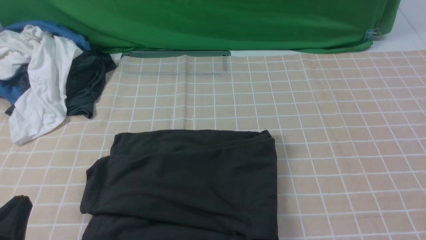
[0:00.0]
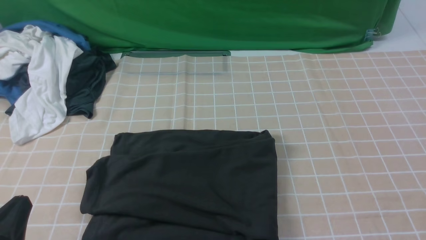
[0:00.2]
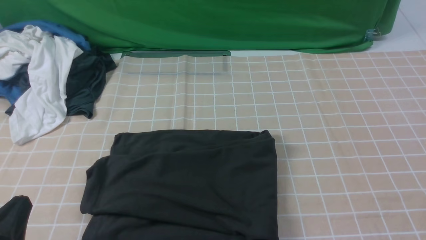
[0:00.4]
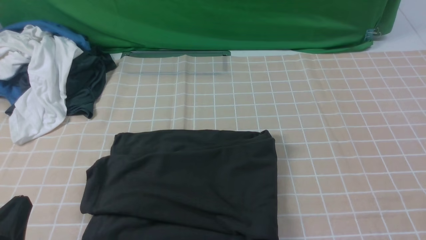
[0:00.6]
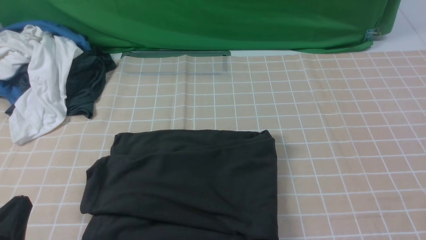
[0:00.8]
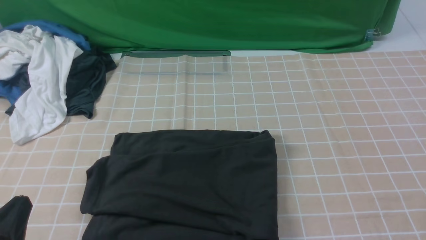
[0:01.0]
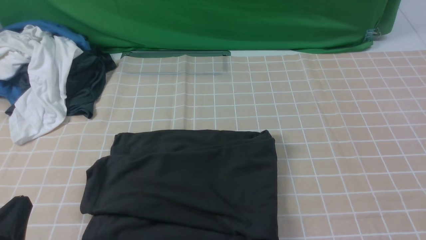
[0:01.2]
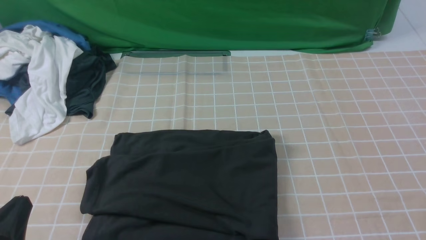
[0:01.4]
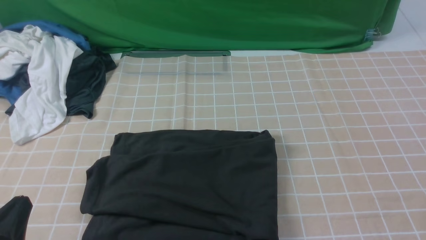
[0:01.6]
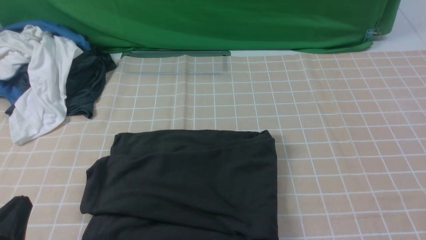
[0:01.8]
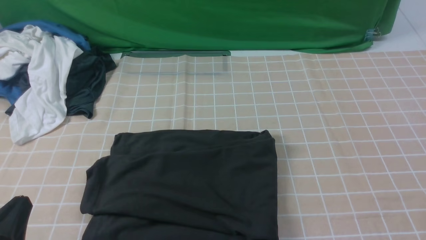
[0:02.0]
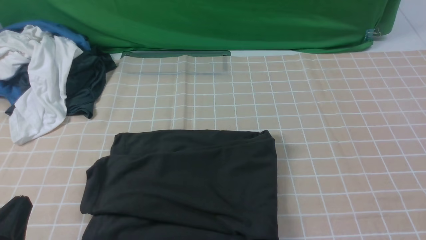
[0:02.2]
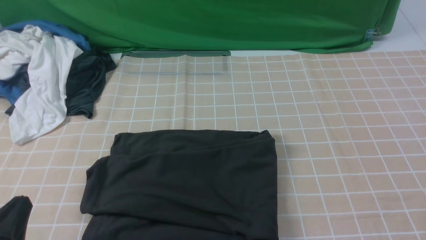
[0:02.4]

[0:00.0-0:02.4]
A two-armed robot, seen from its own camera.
0:01.2 to 0:02.4: Neither gripper changes place.
